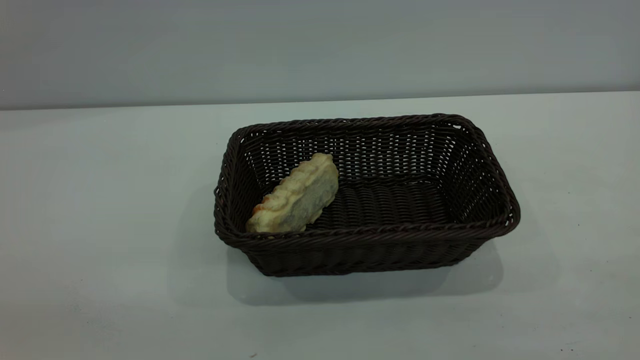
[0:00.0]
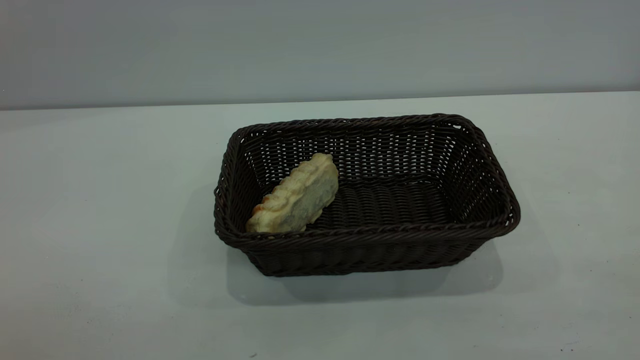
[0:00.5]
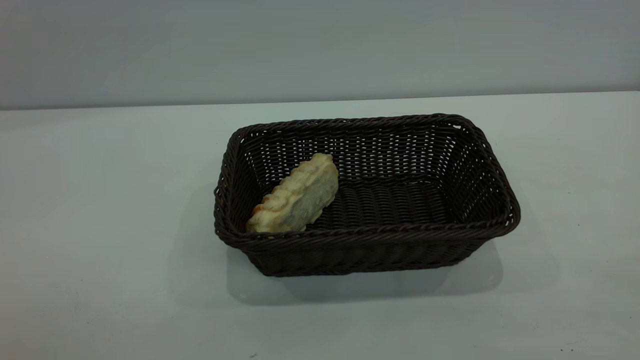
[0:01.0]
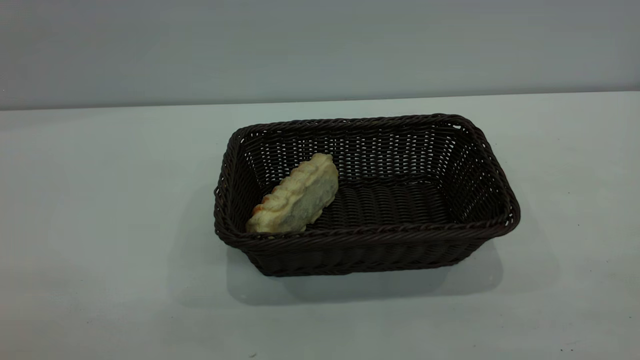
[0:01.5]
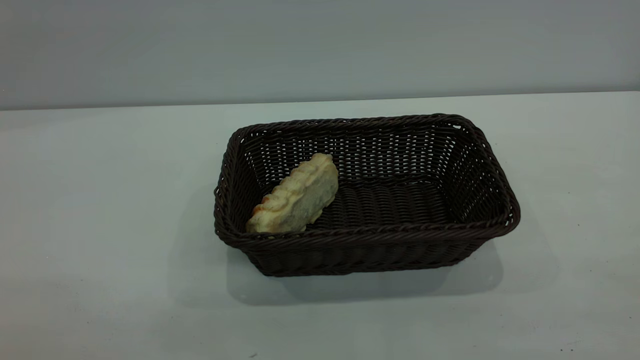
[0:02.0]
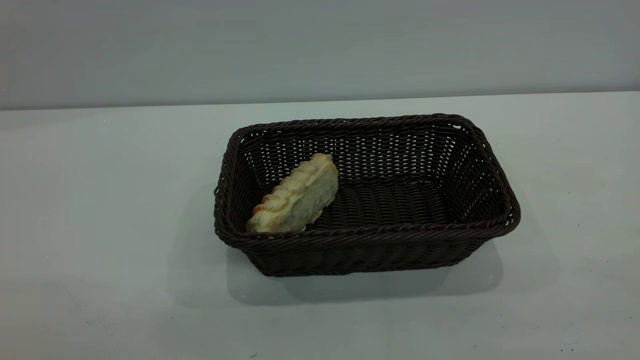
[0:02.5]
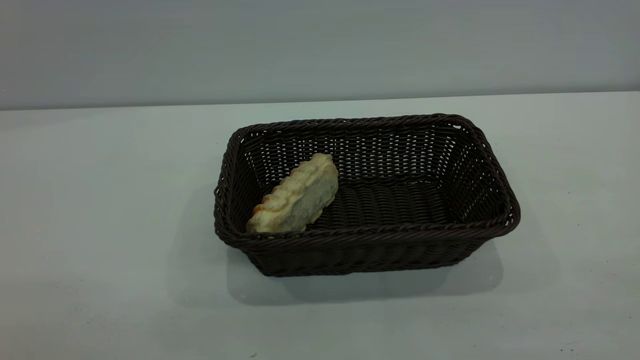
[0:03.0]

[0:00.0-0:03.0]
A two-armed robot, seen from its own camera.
Task of the whole recording: One hand grasps the black basket and places it in the middle of the table, while the other hand picks up the long bread and puts it into the black basket.
0:01.5 to 0:03.0: Neither gripper changes place.
